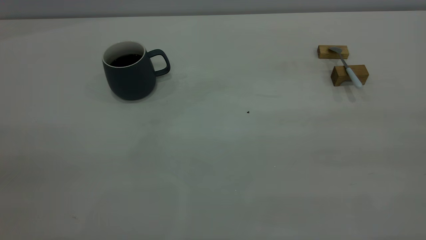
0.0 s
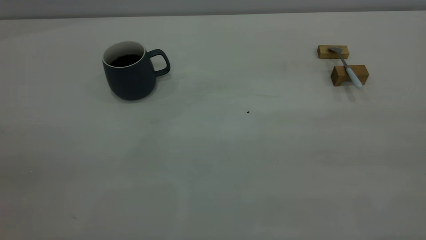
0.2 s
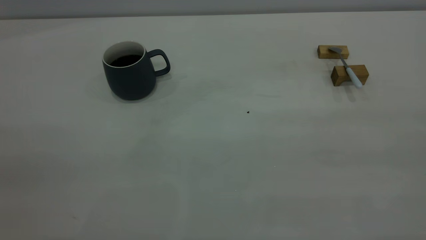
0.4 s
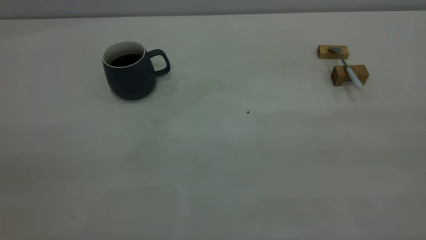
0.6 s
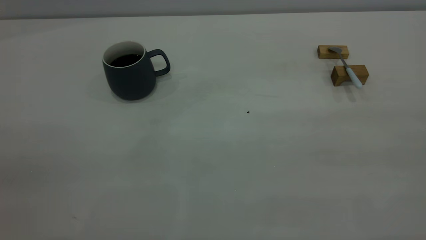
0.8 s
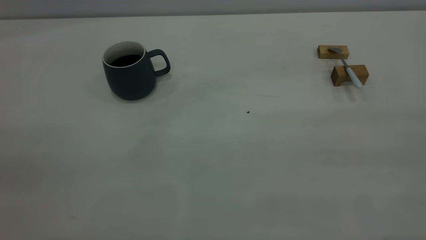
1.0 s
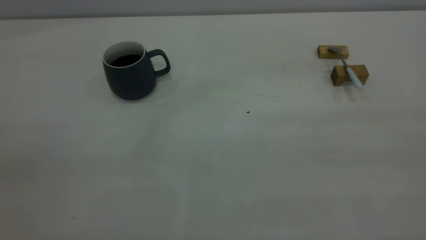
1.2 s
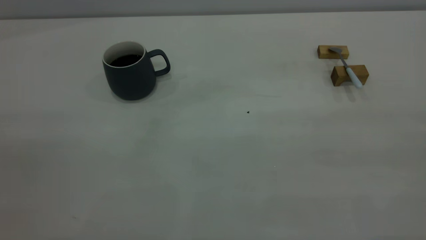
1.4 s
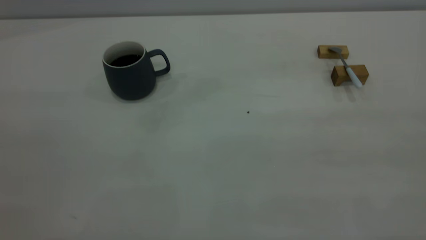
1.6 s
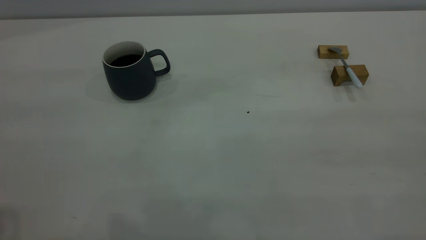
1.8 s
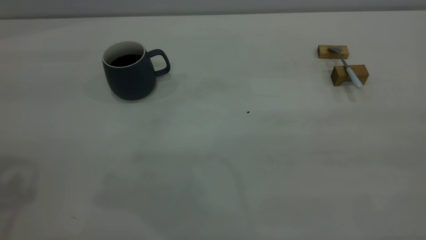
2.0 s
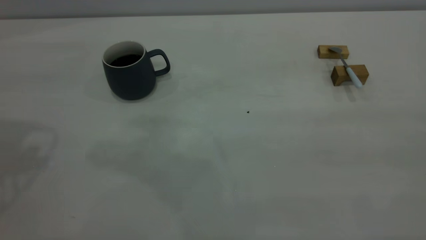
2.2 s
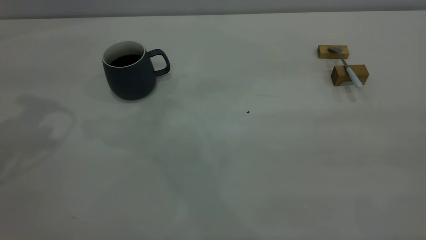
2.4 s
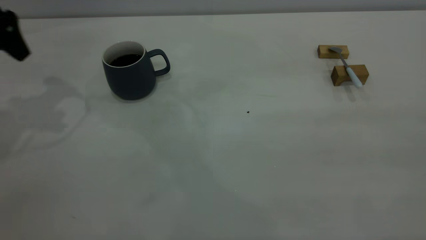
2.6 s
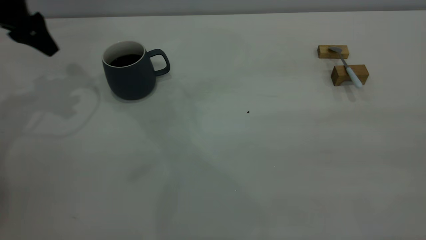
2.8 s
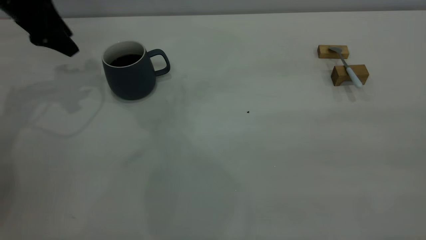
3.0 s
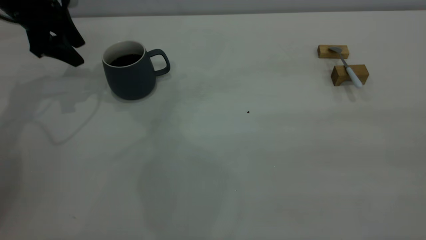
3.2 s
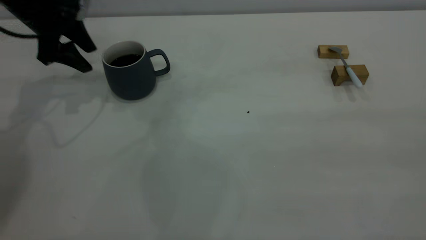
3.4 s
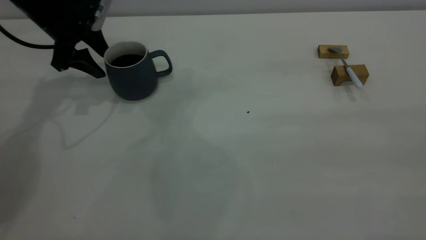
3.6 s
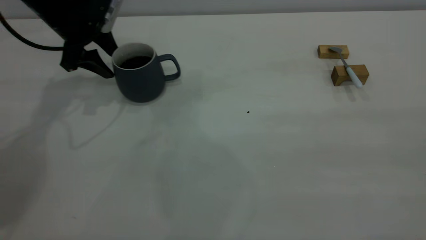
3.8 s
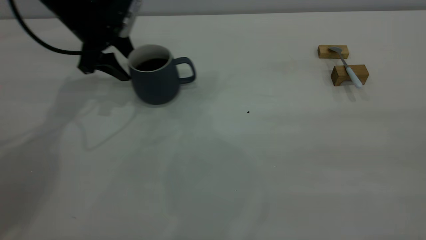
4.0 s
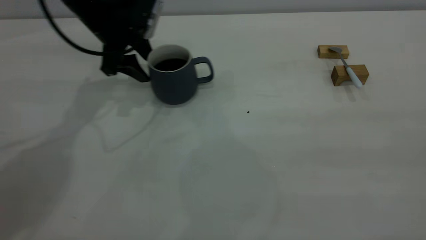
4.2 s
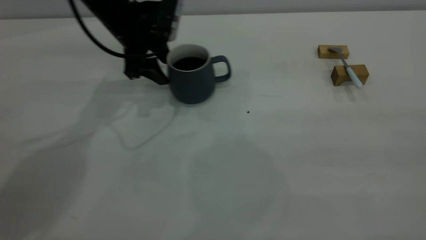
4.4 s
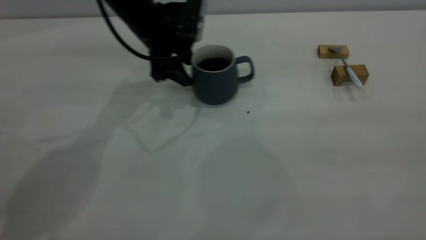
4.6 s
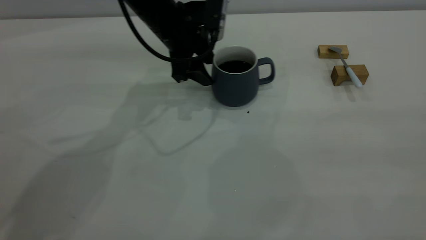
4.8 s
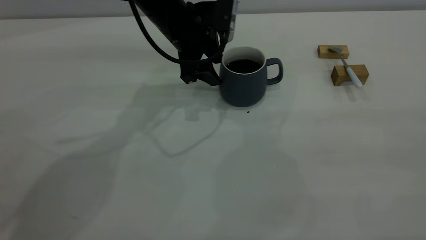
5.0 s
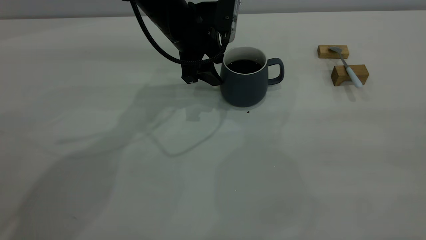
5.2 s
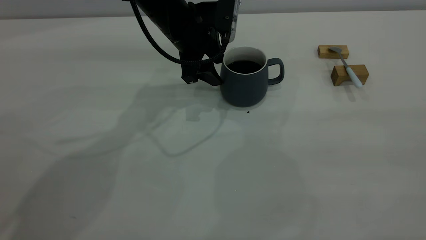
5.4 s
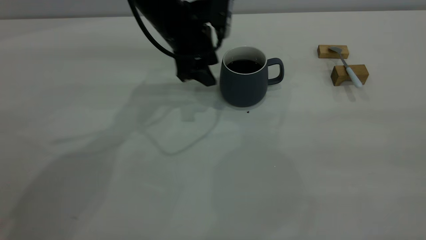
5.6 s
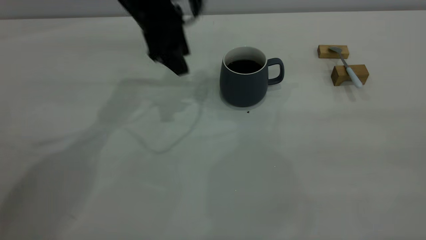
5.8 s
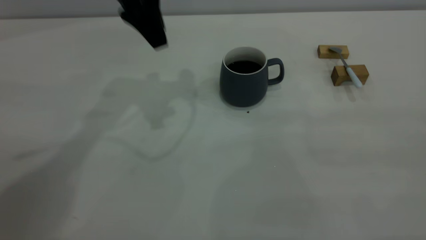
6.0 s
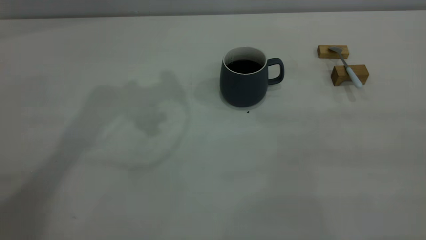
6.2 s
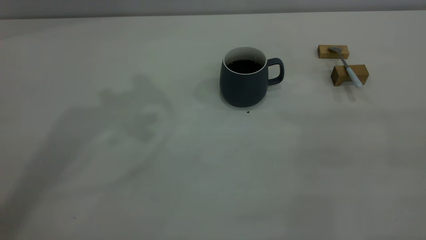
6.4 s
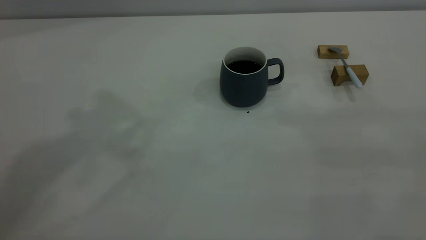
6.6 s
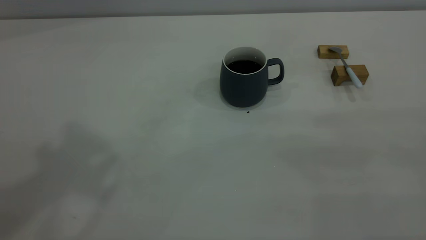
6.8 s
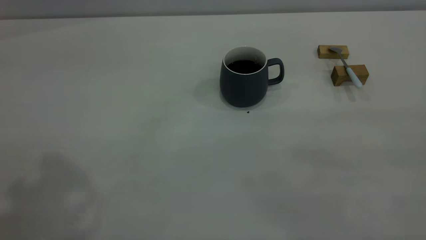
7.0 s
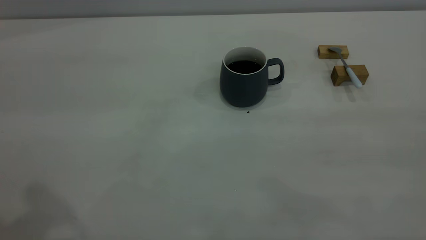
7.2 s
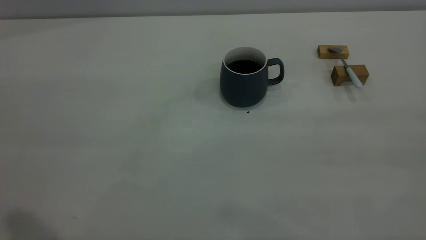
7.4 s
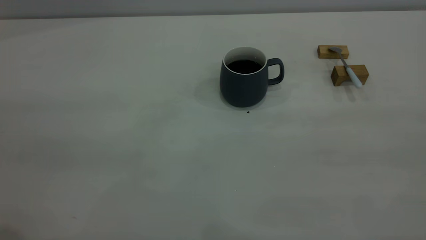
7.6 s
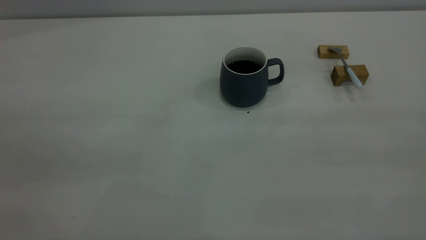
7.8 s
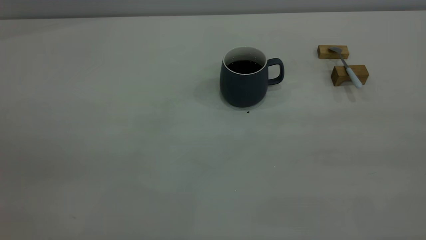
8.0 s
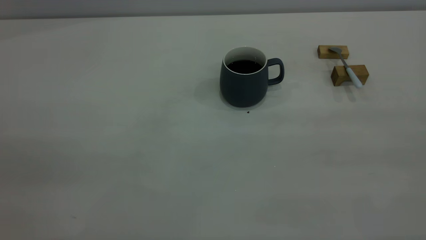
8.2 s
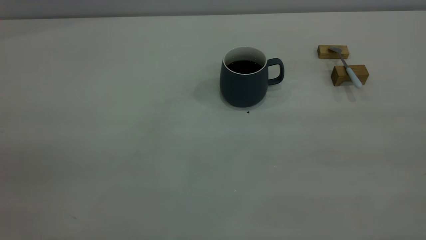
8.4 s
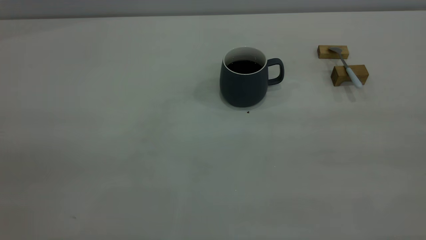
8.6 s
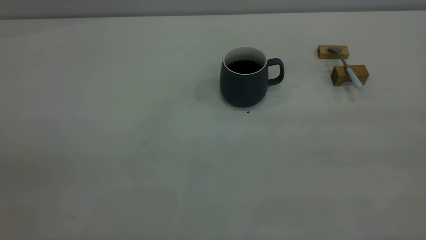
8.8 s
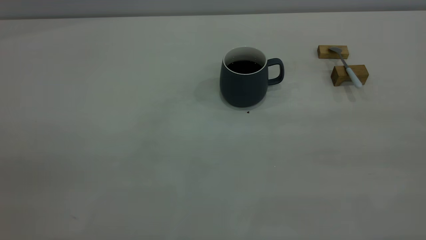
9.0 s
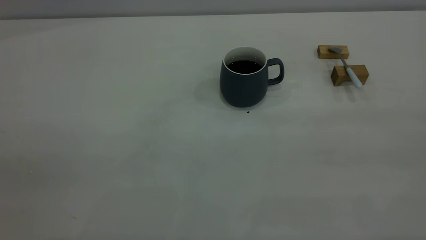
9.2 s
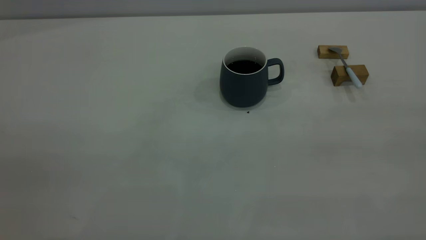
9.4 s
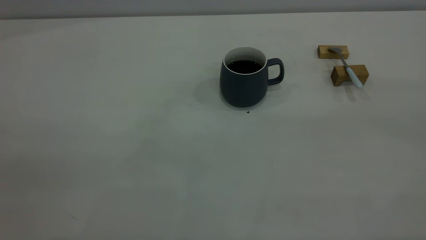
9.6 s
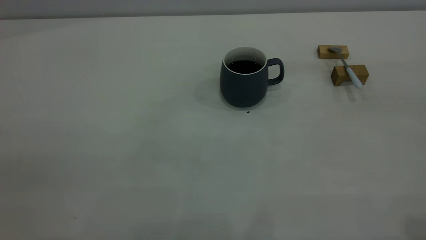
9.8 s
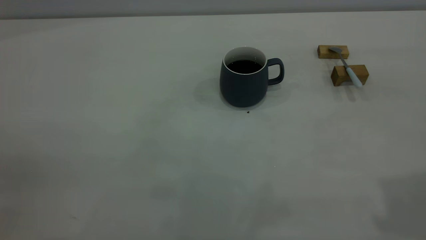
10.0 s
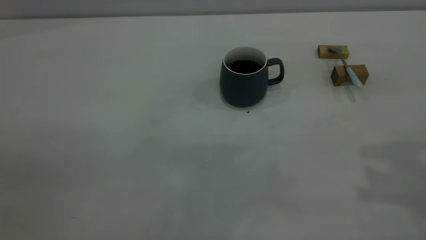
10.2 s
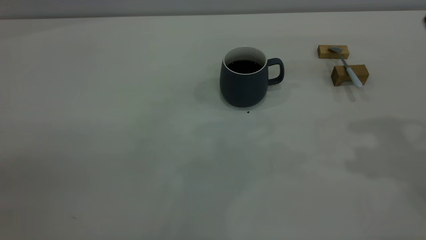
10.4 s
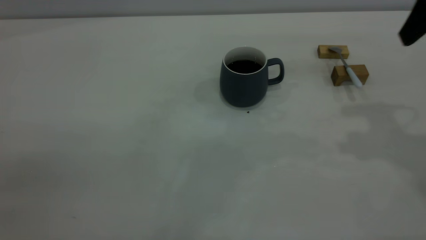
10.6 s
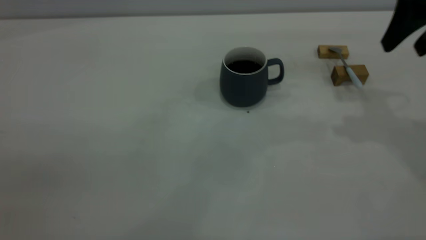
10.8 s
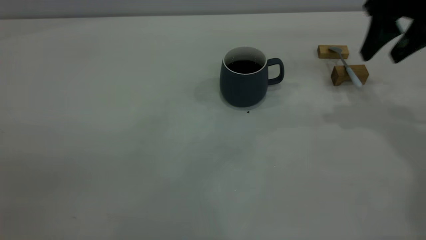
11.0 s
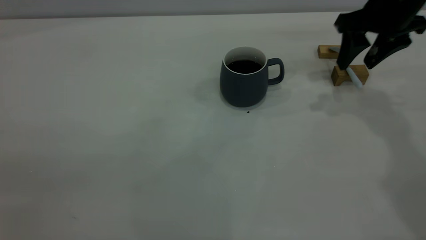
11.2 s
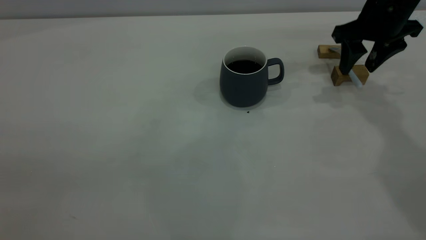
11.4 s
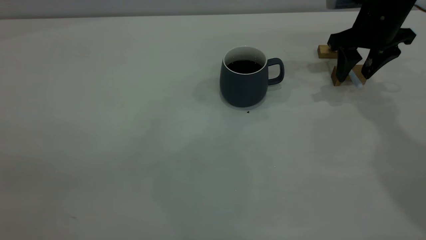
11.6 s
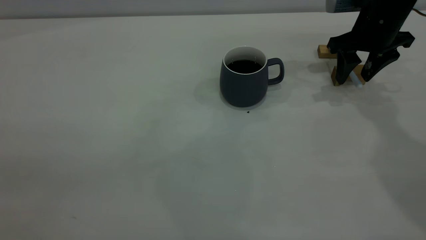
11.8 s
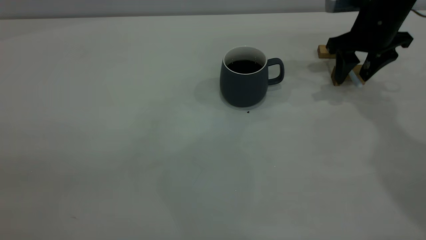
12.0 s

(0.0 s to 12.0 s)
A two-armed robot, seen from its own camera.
Step, 0.0 s - 5.6 s: Move the cup with coffee to the center of view.
1.6 s - 3.0 s: The left gripper is displaced forward and downward by approximately 40 cm.
3.0 s - 4.4 s: The left gripper moves to the right, some 15 cm.
4.4 s - 6.0 s: The left gripper travels upward by about 15 cm.
6.0 s - 7.6 s: The left gripper travels backward by approximately 35 cm.
10.4 s - 12.0 s: The right gripper travels downward and forward by approximately 25 cm.

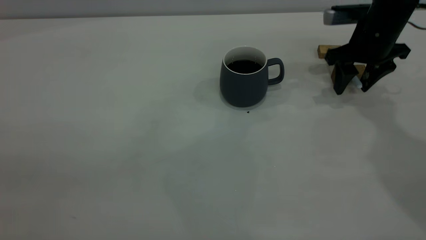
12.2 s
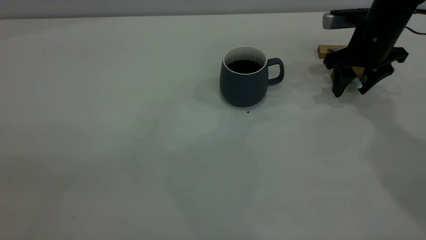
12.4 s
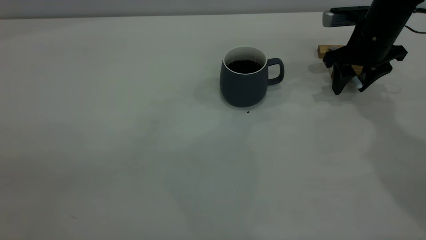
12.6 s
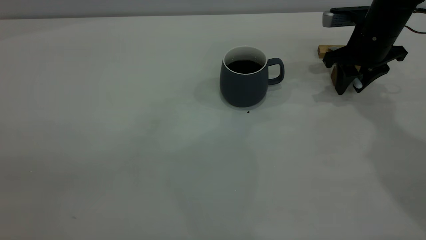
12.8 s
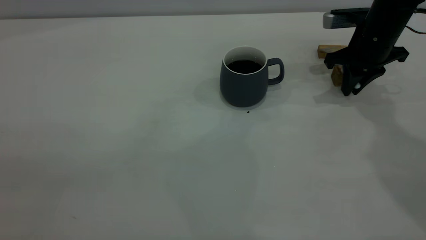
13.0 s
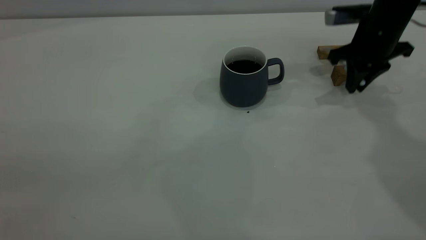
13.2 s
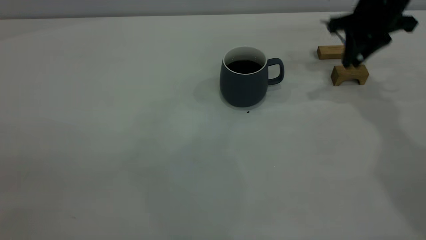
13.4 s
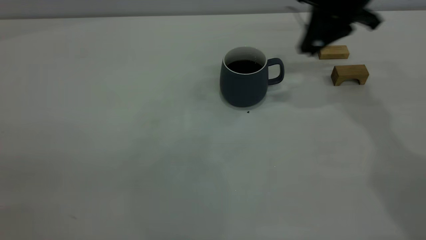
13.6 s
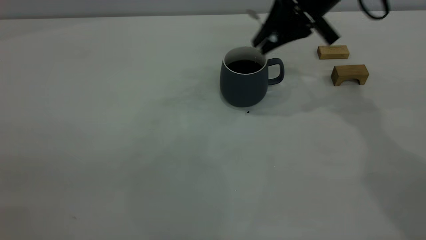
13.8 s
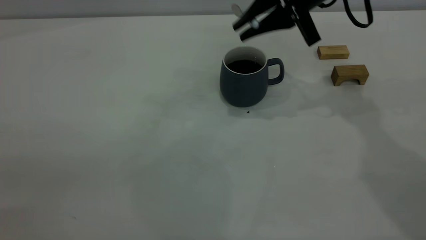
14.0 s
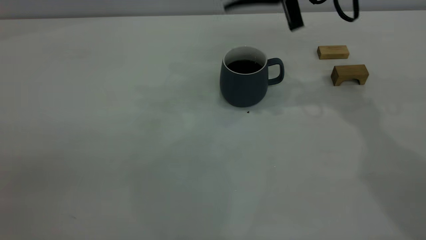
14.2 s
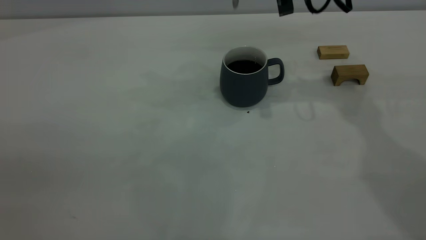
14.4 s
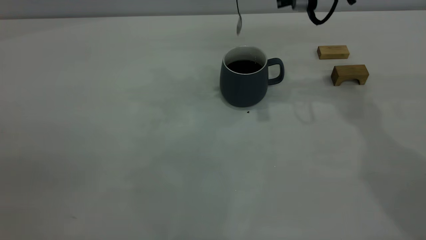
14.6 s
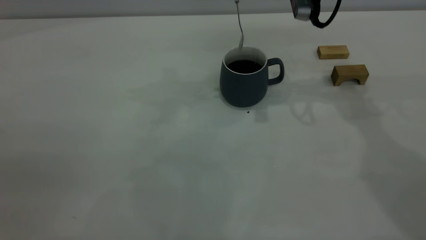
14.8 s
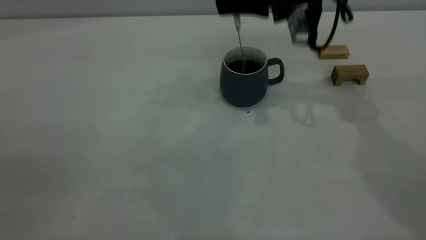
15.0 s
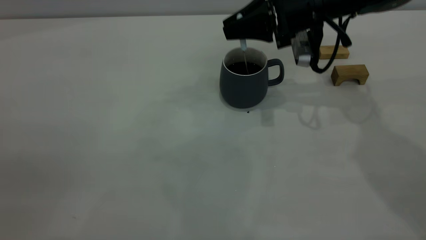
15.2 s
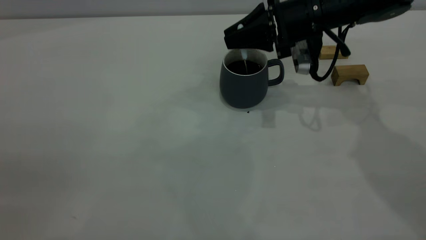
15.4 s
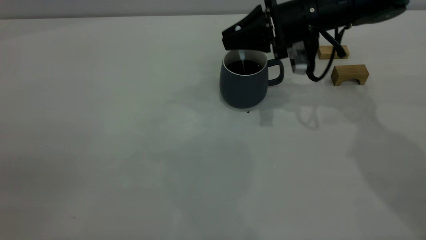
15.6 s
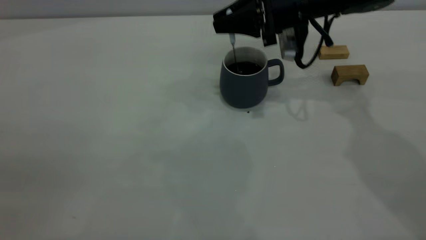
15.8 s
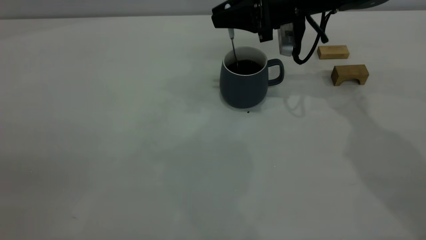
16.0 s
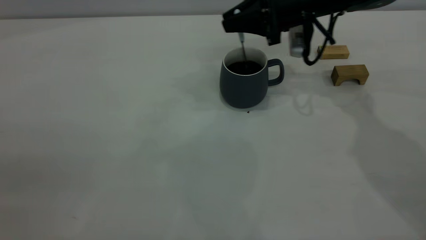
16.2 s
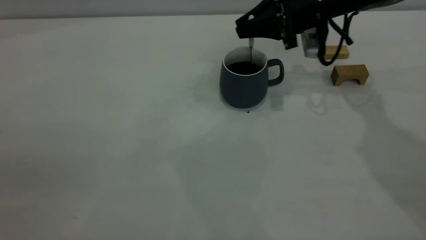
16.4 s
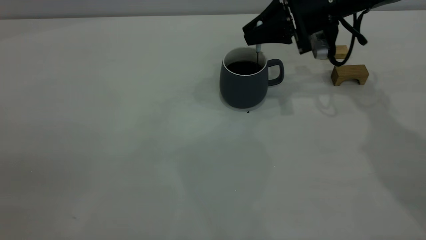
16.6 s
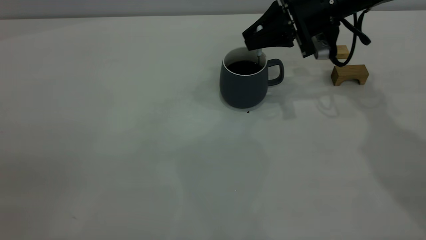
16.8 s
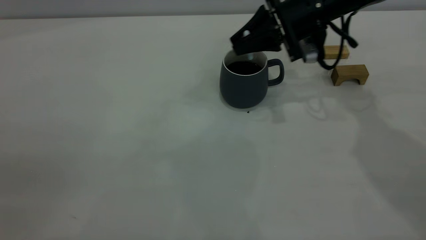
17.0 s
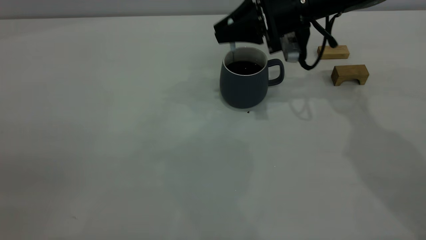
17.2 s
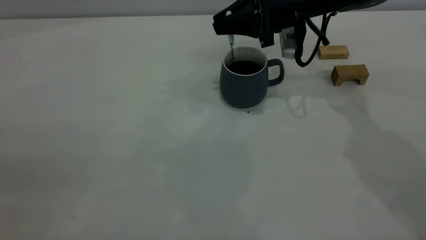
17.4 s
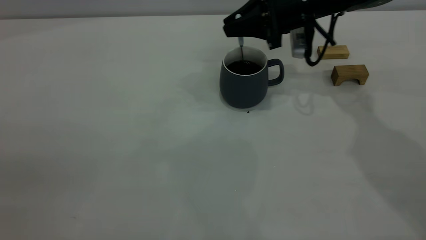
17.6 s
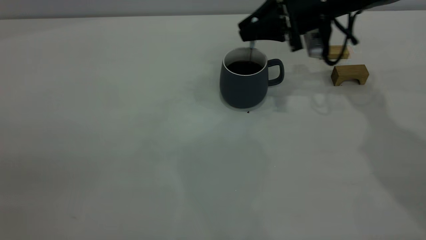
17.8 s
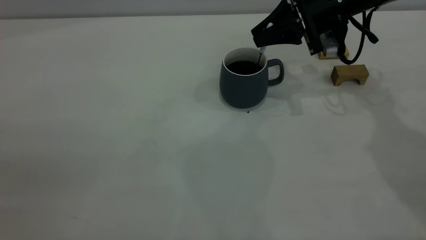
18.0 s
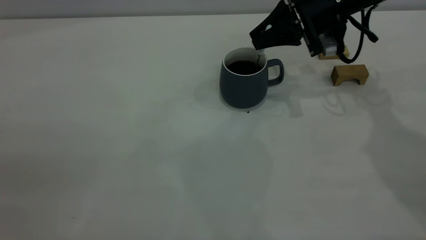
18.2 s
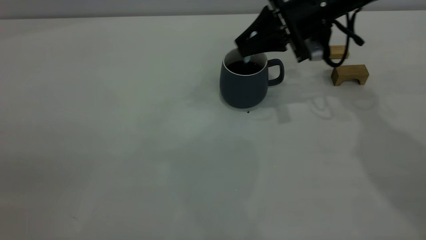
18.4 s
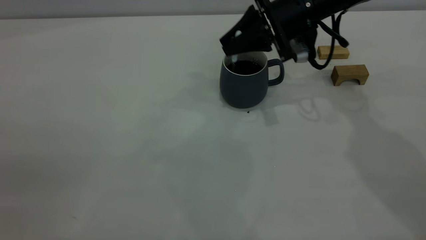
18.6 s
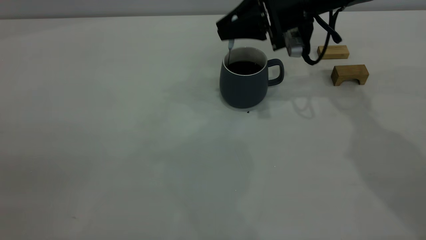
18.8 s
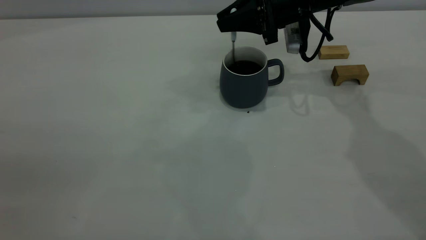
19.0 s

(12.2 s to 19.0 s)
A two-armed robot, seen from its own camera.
12.2 s - 13.6 s: The right gripper shifts some 10 cm upward and to the left, and closes up.
13.6 s - 15.0 s: The right gripper changes place by approximately 5 cm.
15.0 s - 16.2 s: The right gripper shifts by roughly 5 cm.
16.2 s - 19.0 s: The grippers stay close to where they were, moving slightly.
